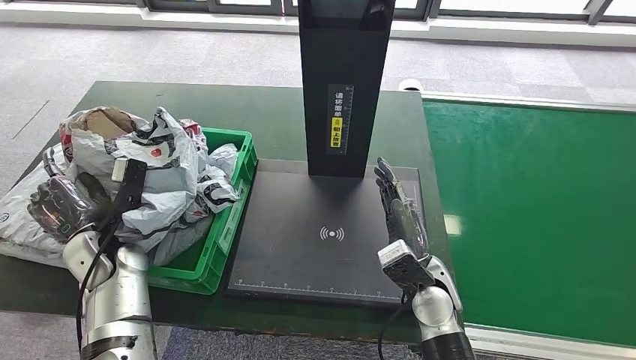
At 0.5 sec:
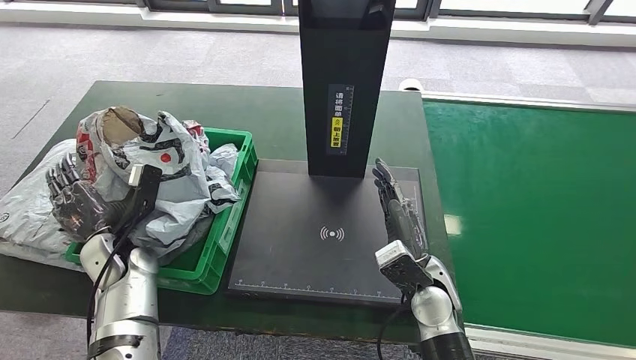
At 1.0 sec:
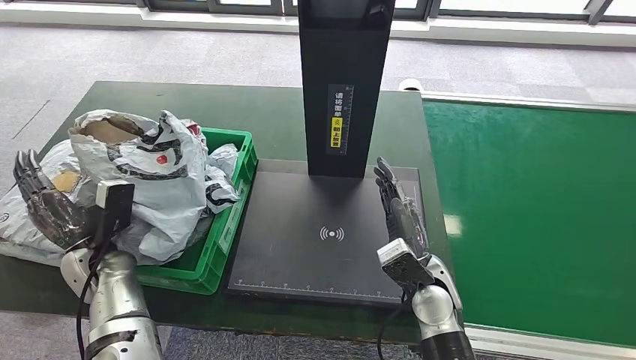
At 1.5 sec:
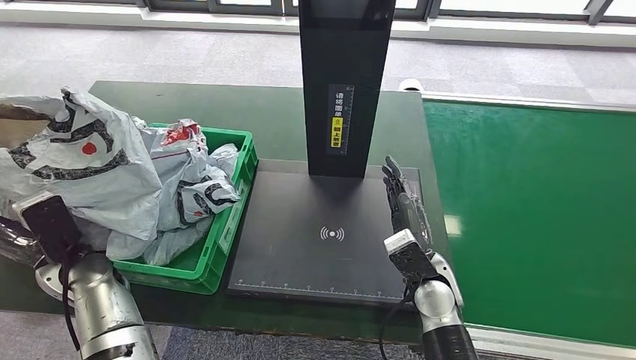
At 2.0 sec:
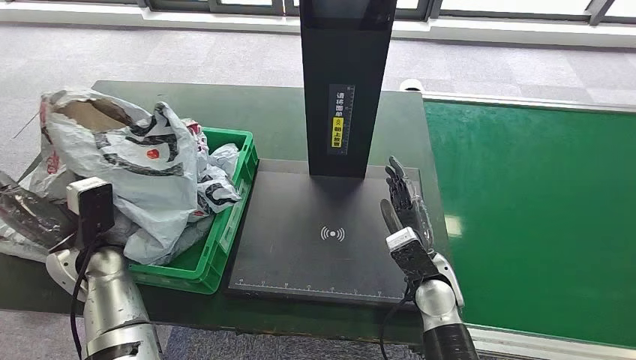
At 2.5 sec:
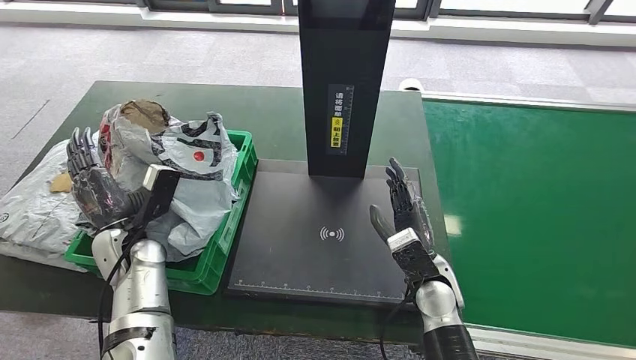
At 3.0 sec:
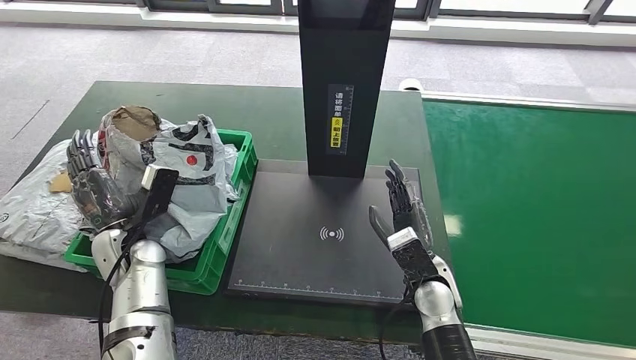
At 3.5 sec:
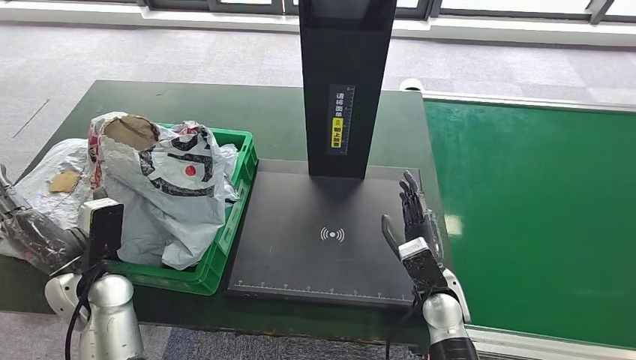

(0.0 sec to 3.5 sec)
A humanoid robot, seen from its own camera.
Step, 0.0 sec - 3.5 sec: Place the parcel into the delivery box.
2.0 sec - 3.5 sec: The left hand shifts by some 5 cm.

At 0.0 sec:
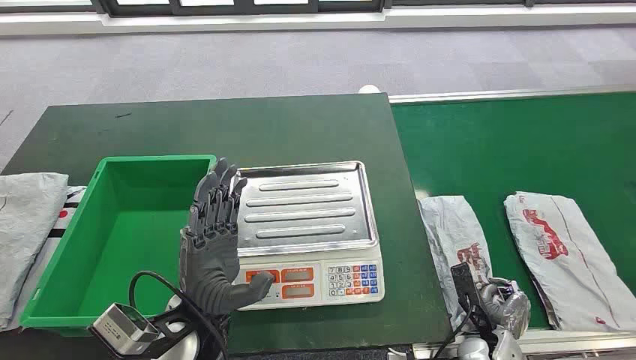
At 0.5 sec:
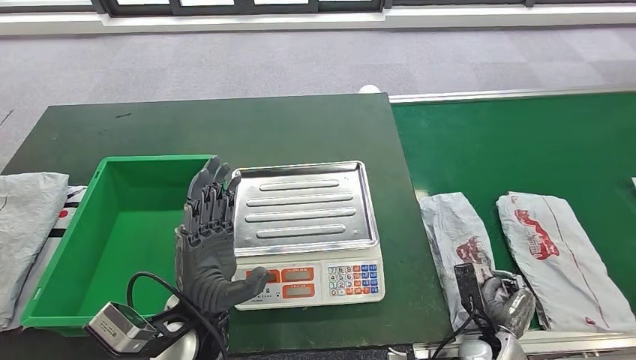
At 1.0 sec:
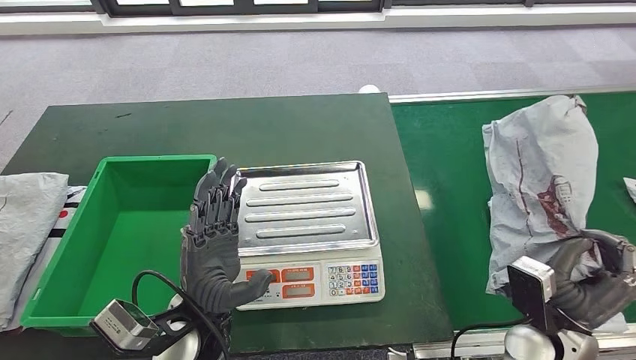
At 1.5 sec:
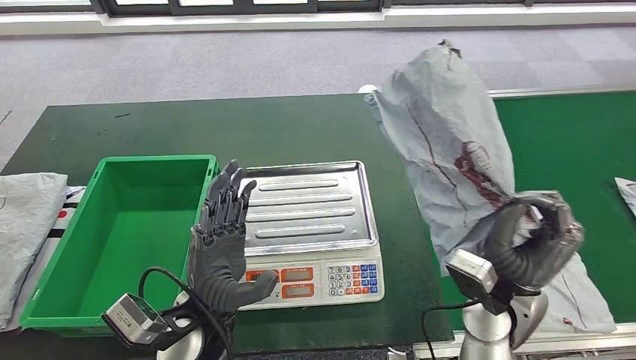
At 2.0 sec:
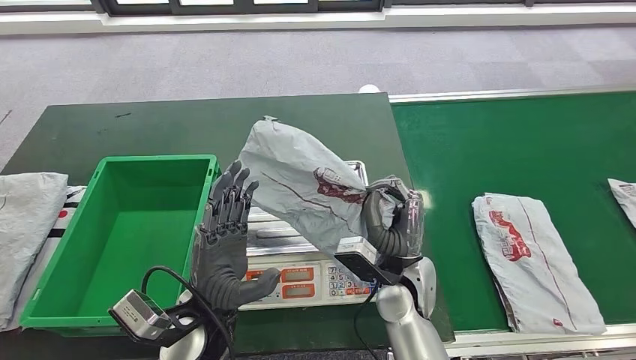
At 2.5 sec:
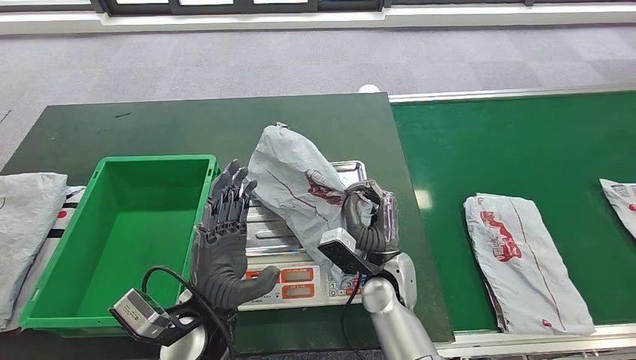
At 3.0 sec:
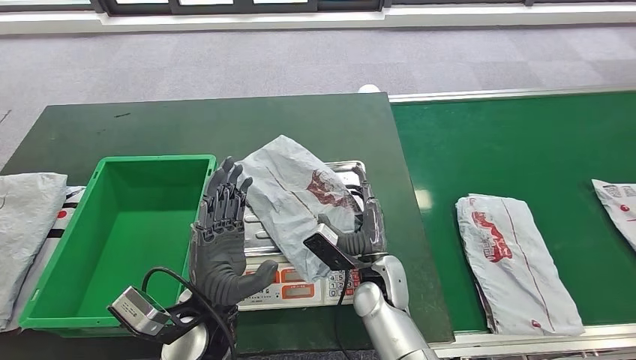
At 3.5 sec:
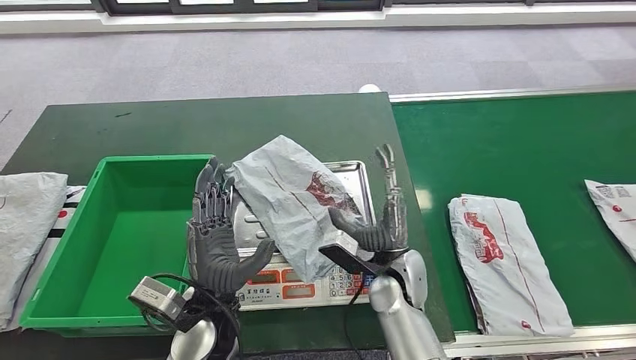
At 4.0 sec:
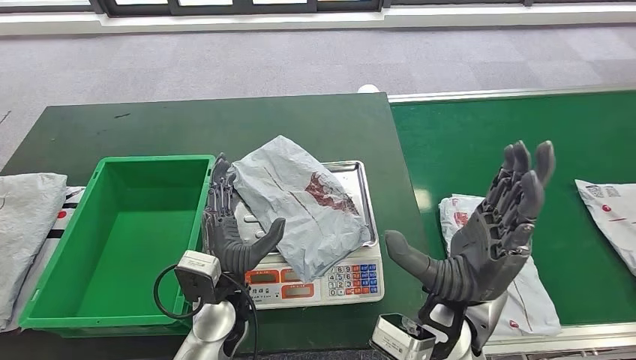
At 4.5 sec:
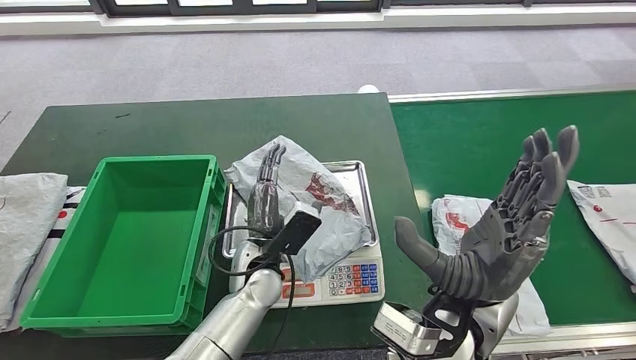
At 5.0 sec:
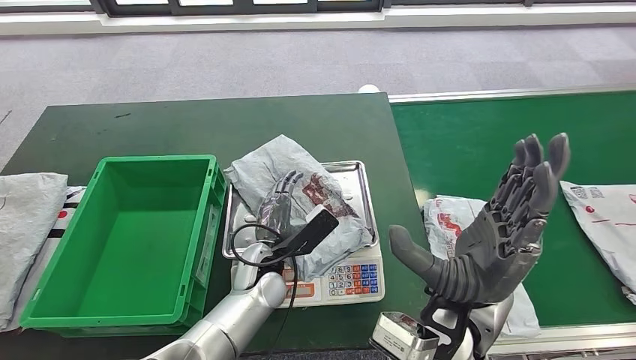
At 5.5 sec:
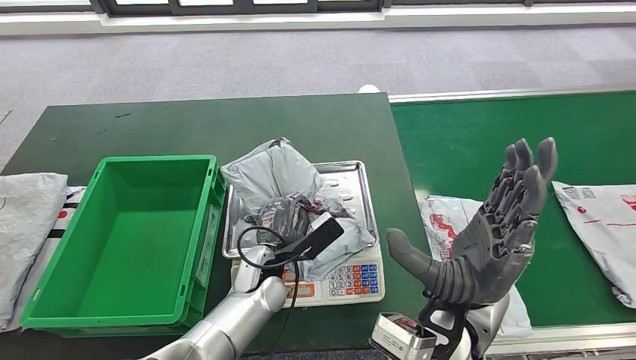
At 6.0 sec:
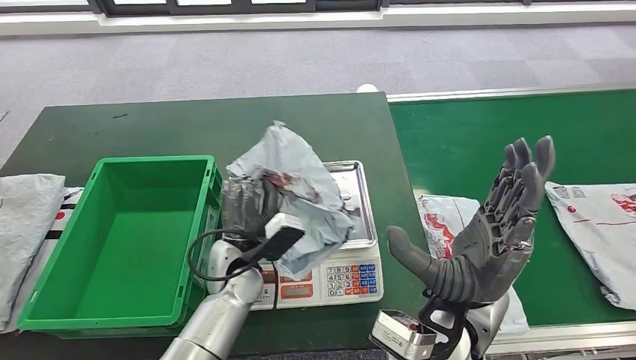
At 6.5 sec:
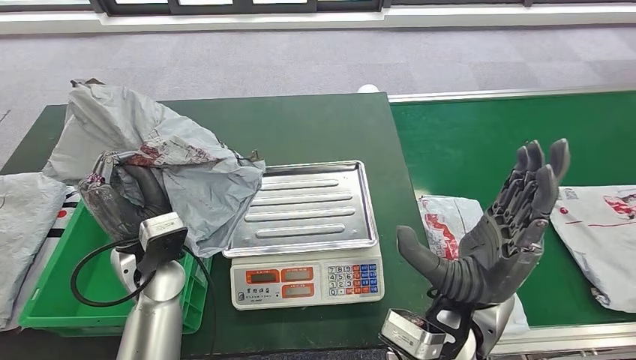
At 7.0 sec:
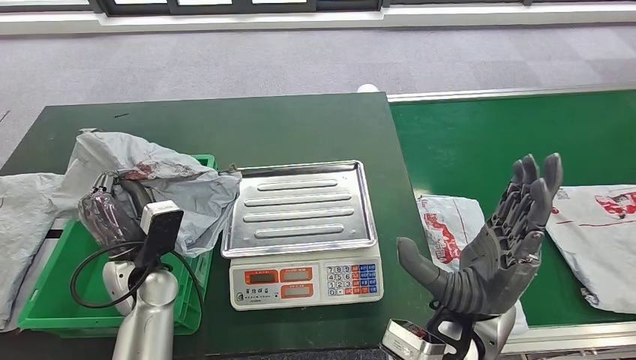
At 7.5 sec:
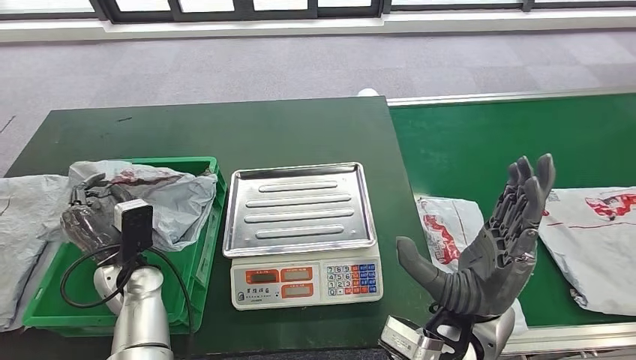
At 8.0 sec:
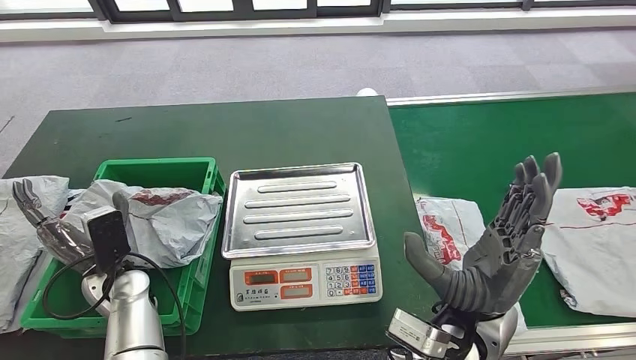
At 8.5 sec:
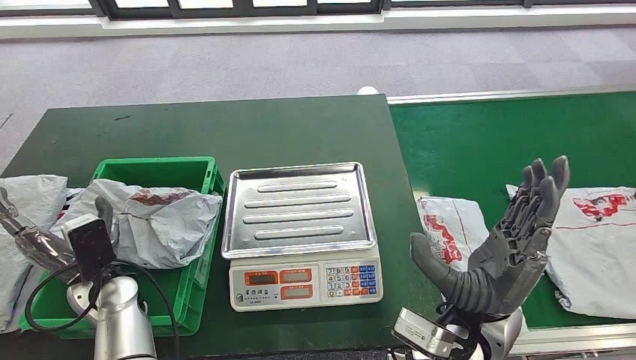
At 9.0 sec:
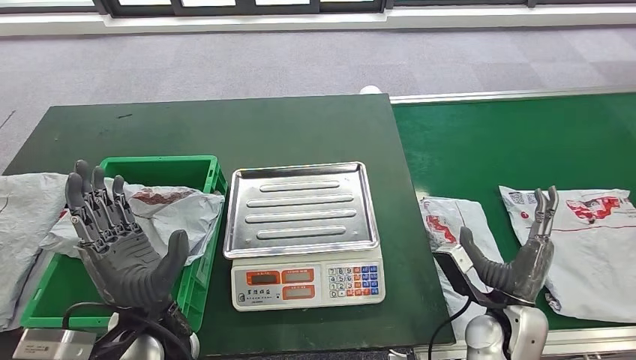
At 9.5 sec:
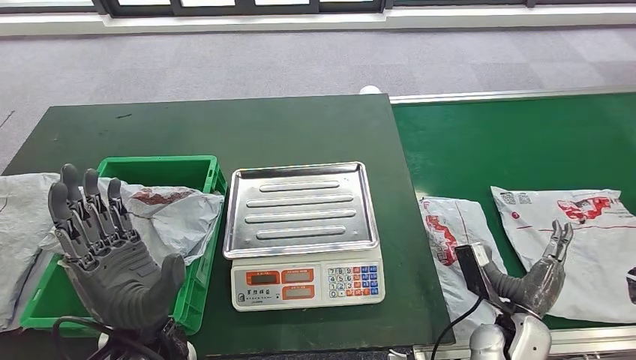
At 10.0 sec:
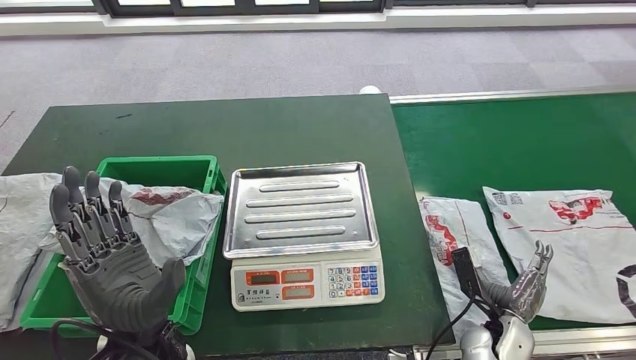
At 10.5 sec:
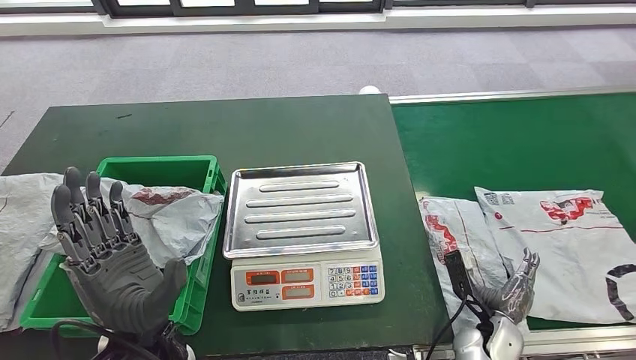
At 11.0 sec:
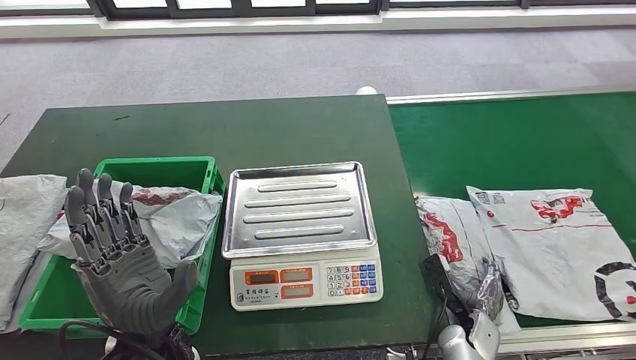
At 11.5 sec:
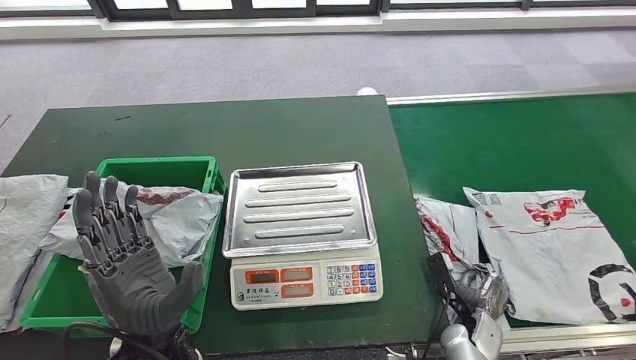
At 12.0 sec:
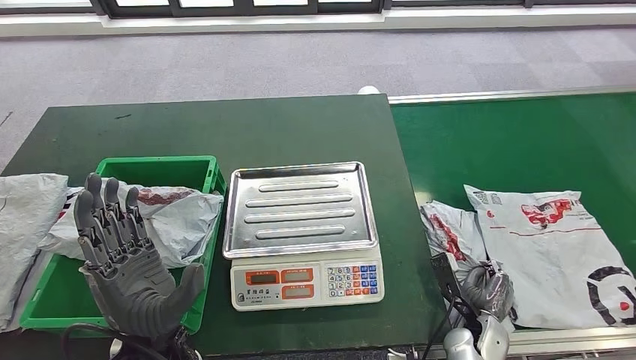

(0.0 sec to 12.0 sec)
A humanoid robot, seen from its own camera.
Step, 0.0 sec - 1.5 sec: Take the parcel off the conveyor belt.
Step, 2.0 sec - 4.0 sec: Place the parcel onto the inbound machine.
Step, 4.5 sec - 7.0 sec: Pick up the parcel from the inbound machine.
Step, 7.5 sec - 10.5 sec: Put the parcel inside the courier box.
4.0 sec - 6.0 sec: The left hand moves forward, approximately 5 cm.

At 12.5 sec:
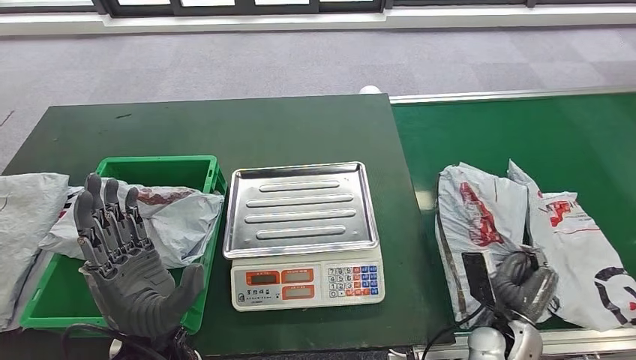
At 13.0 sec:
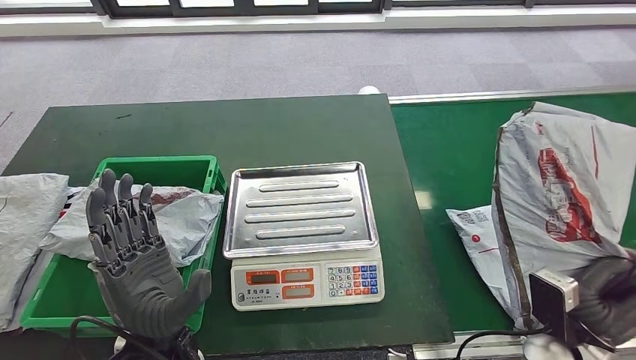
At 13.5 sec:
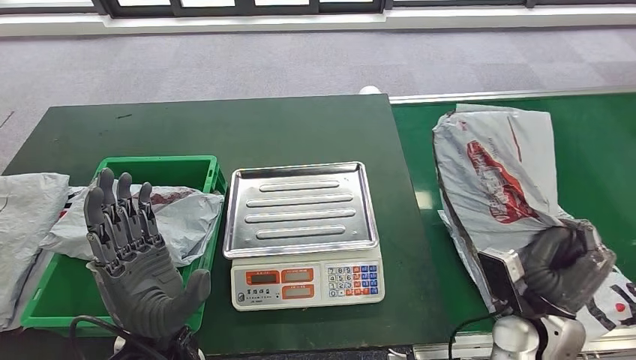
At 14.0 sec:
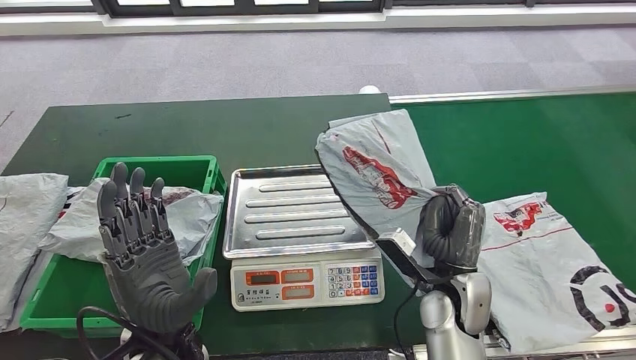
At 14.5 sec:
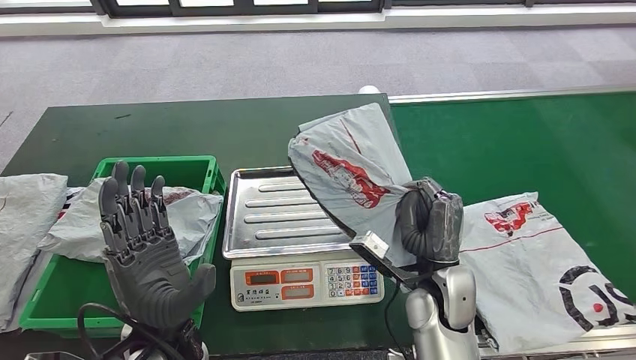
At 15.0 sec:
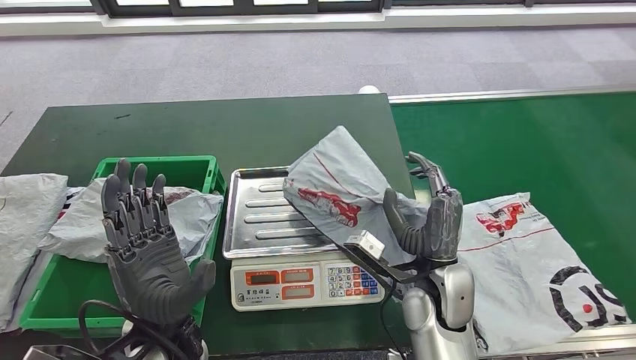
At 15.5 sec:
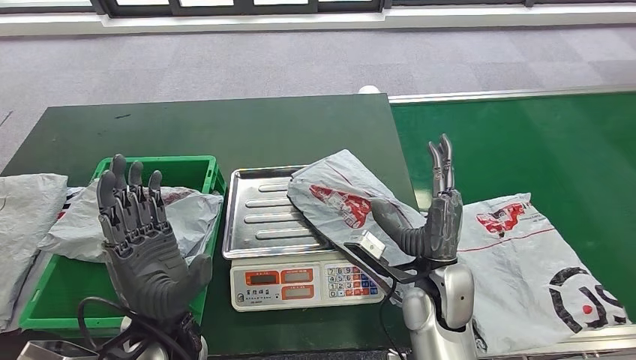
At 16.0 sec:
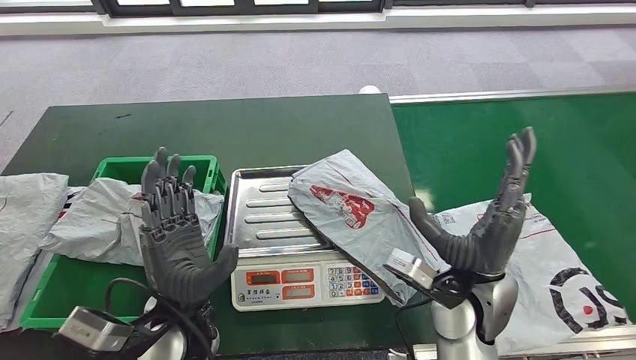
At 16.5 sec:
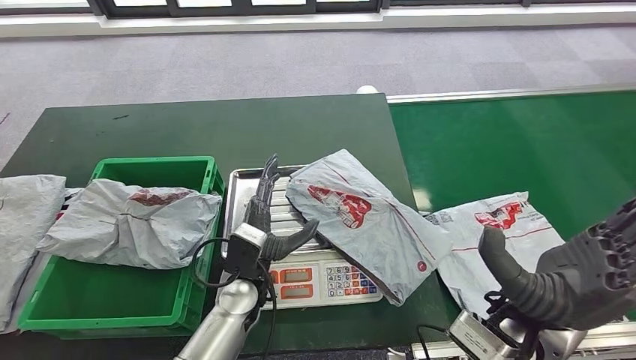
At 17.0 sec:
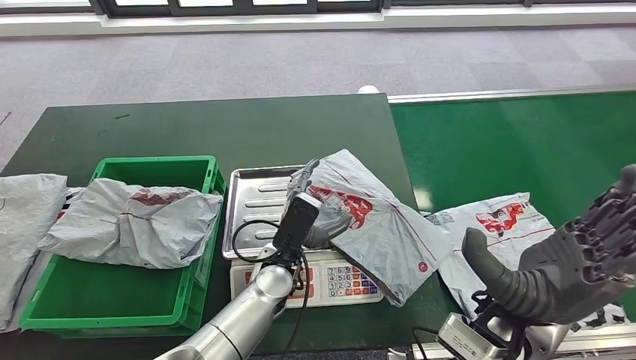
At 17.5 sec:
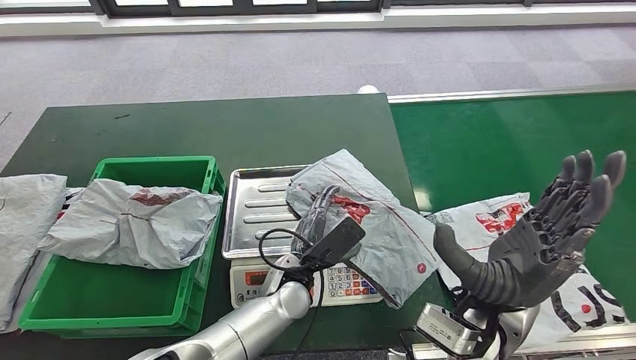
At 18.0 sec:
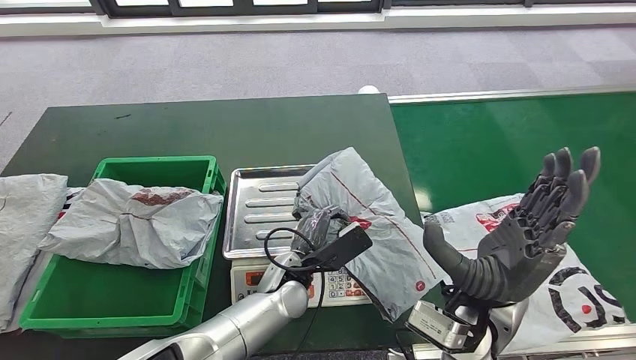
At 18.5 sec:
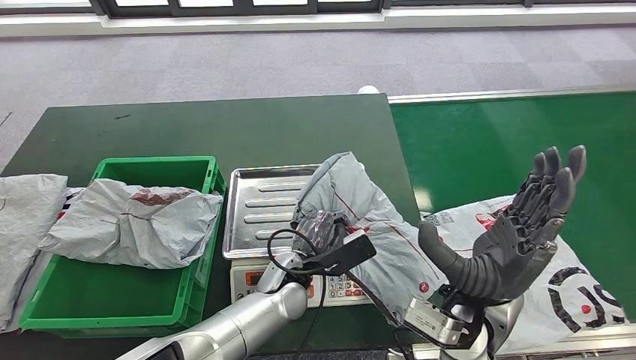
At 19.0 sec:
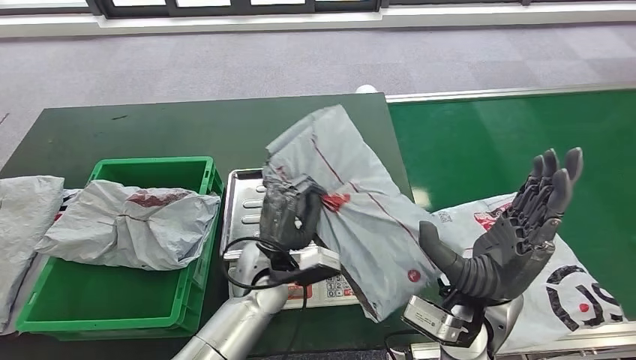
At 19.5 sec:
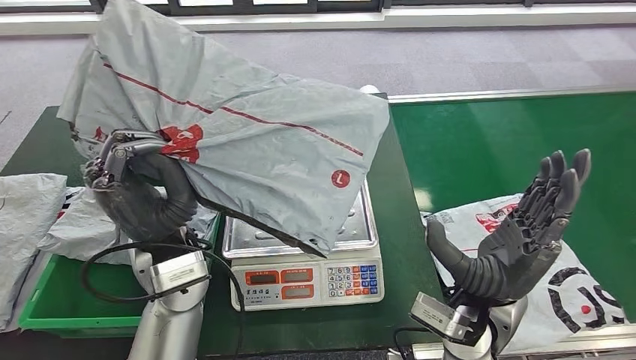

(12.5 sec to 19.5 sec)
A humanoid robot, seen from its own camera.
Step, 14.0 sec - 16.5 sec: Place the parcel onto the inbound machine.
